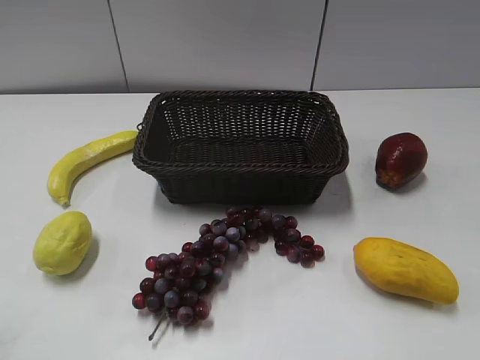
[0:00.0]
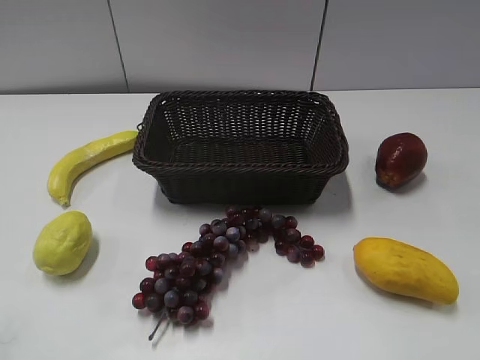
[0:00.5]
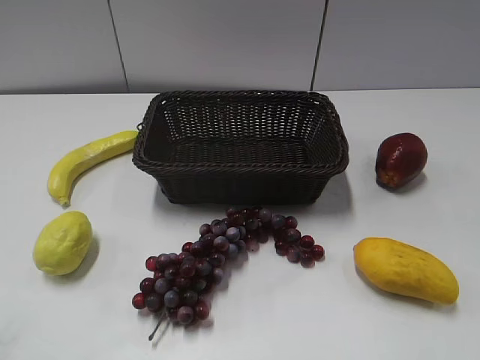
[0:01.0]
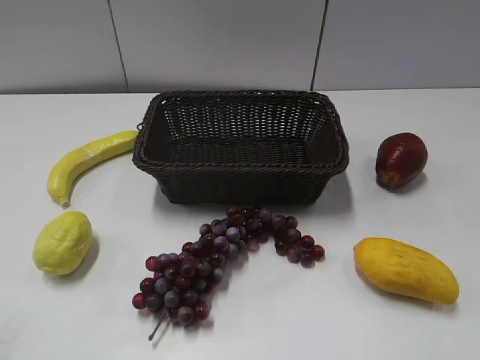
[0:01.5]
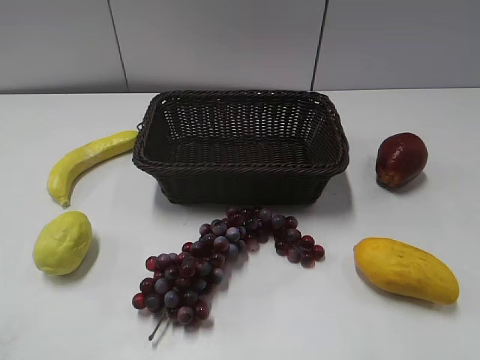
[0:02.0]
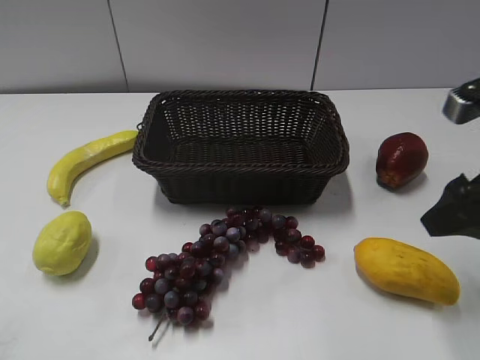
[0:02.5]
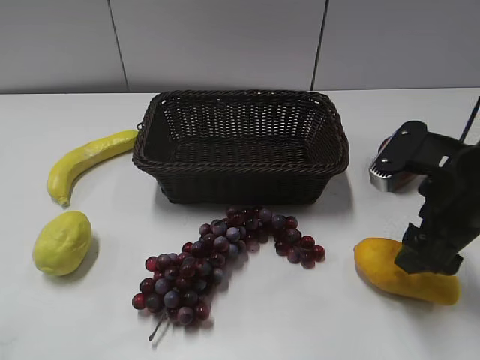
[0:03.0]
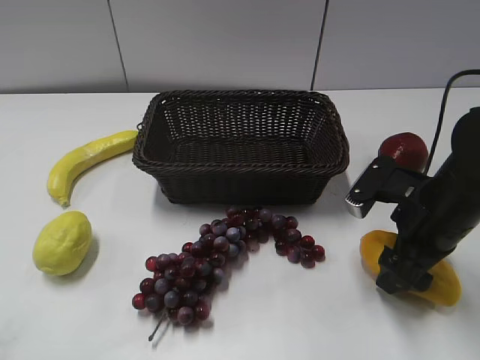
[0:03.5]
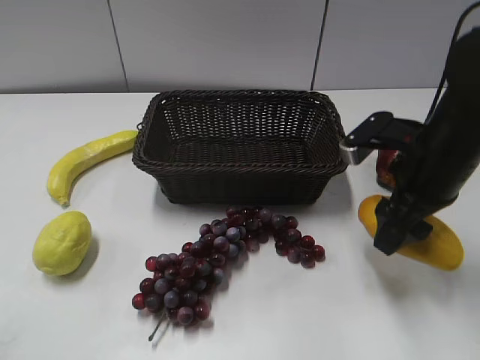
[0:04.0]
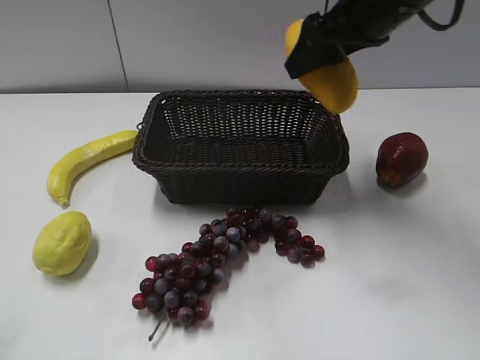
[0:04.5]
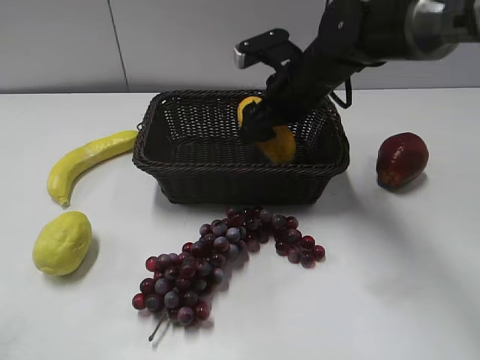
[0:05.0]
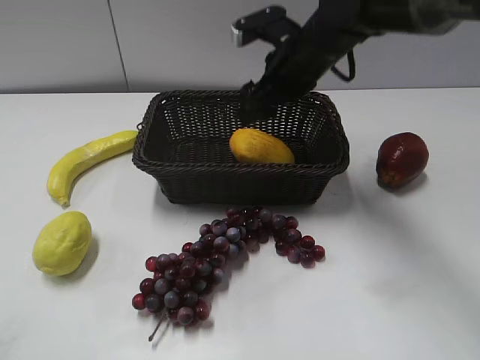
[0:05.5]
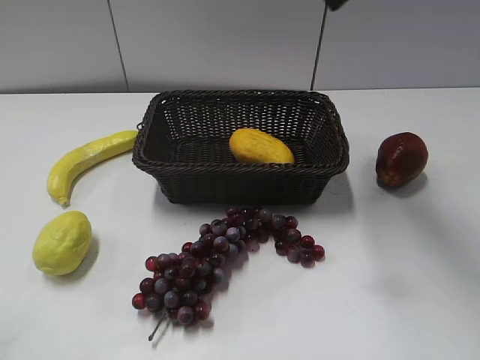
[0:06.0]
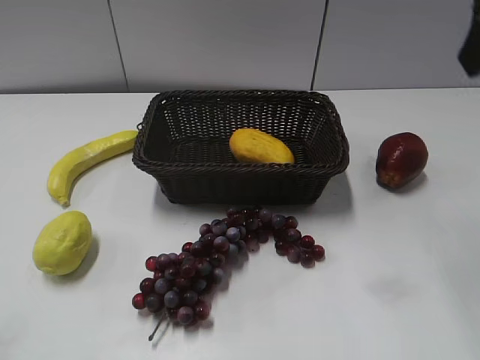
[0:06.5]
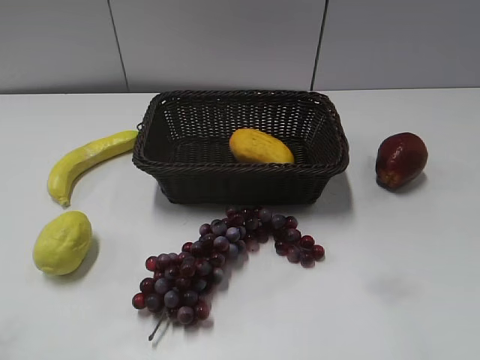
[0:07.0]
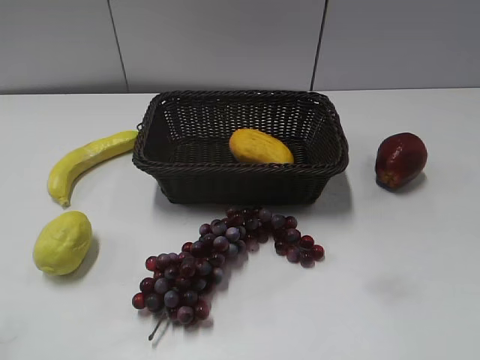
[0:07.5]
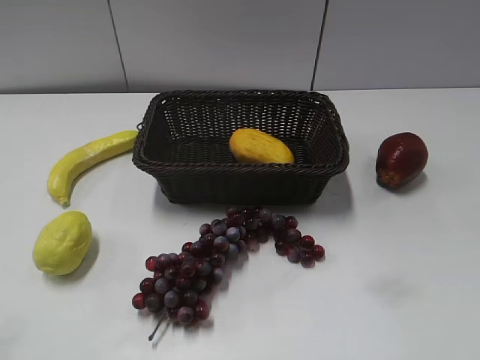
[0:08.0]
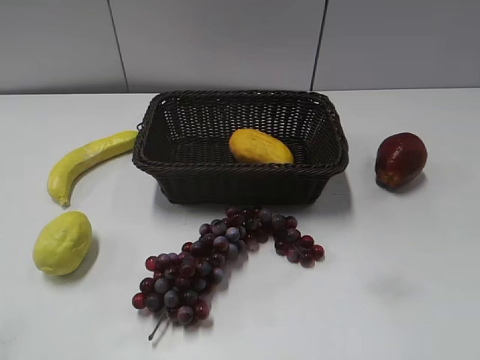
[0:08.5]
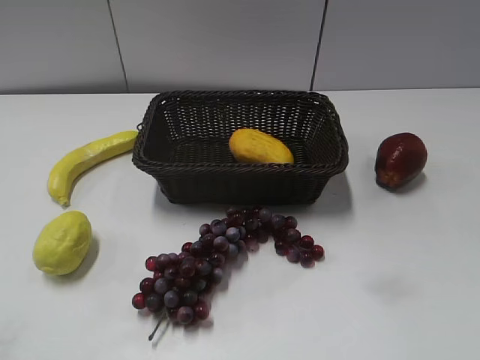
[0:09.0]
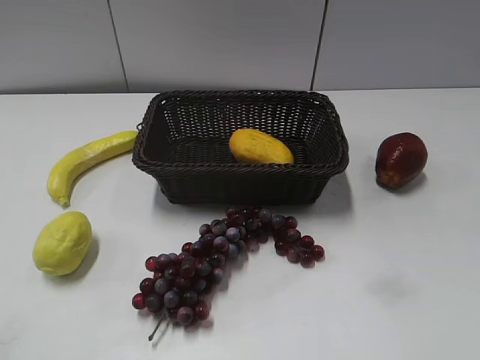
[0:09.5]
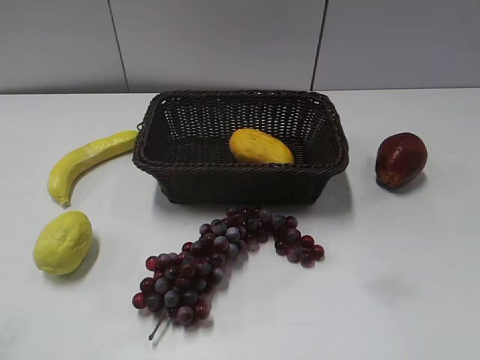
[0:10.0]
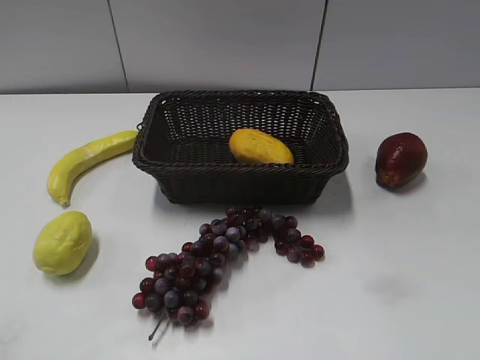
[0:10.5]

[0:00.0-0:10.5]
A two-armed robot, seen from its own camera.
Step, 0:02.5 to 0:03.5: Grasp the mango with right gripper.
Step, 0:04.0 to 0:05.0: Place the mango in the basket with right gripper.
0:02.0 to 0:04.0: The right gripper travels forward, downward and to the left by about 20 cm.
0:04.0 to 0:06.5: The right gripper goes up and down, about 25 cm each way, reversing 2 times.
0:06.5 to 0:08.5: The right gripper travels backward, downward and to the right by about 25 cm.
